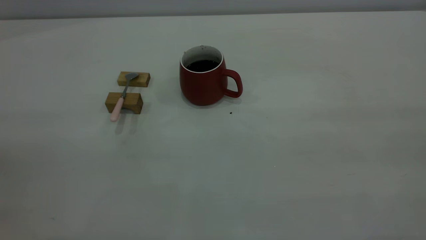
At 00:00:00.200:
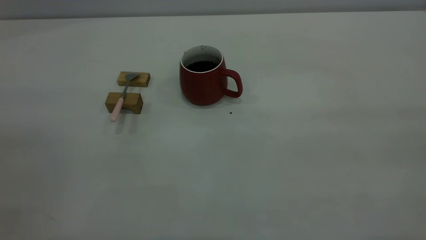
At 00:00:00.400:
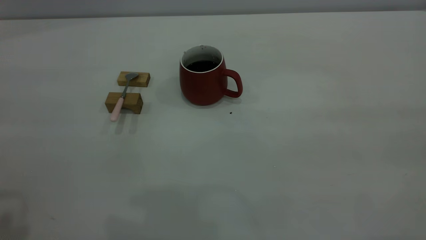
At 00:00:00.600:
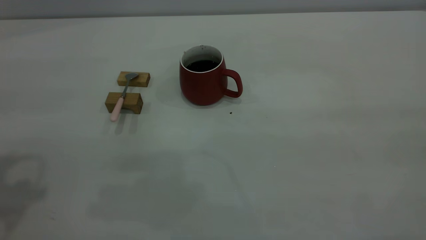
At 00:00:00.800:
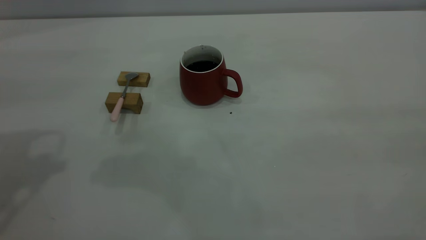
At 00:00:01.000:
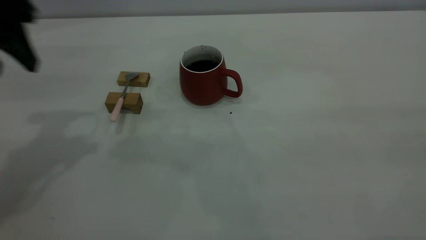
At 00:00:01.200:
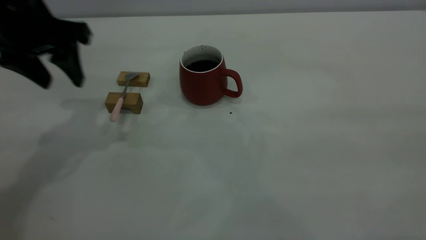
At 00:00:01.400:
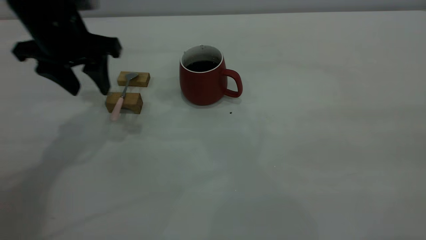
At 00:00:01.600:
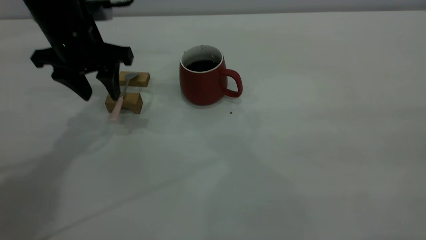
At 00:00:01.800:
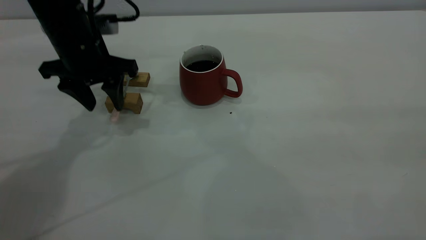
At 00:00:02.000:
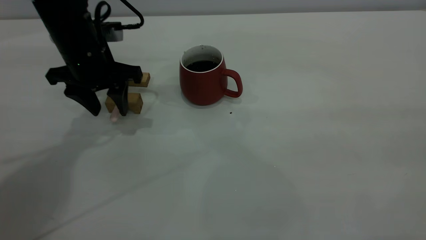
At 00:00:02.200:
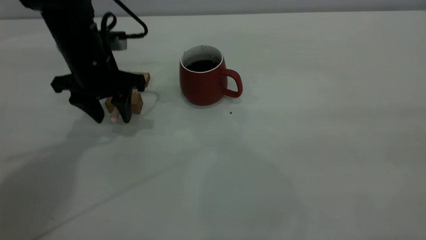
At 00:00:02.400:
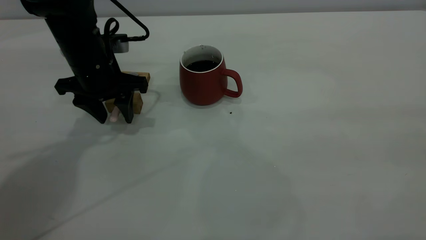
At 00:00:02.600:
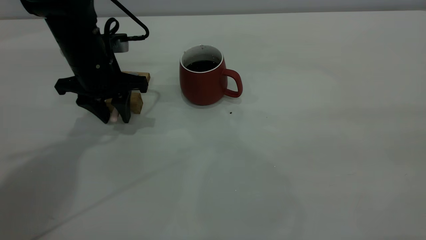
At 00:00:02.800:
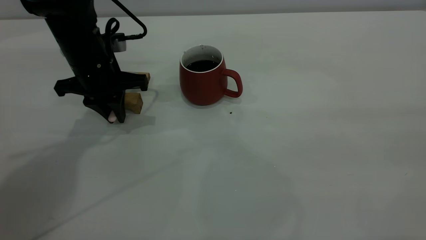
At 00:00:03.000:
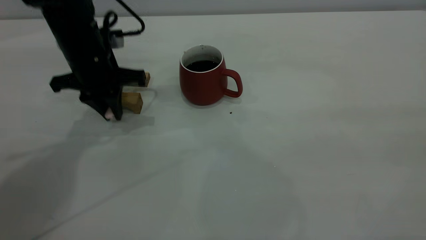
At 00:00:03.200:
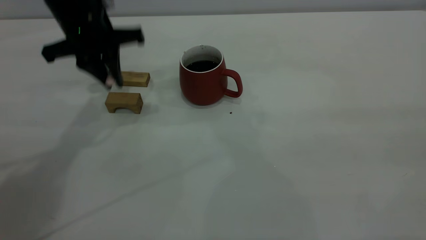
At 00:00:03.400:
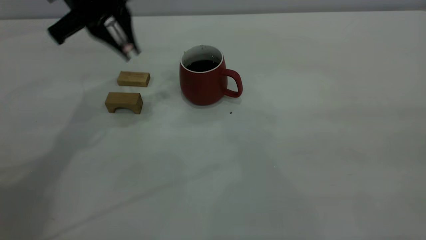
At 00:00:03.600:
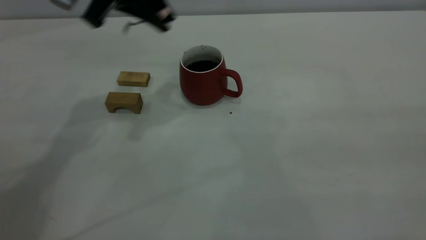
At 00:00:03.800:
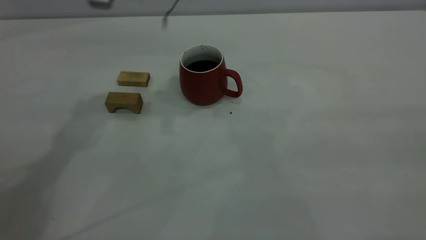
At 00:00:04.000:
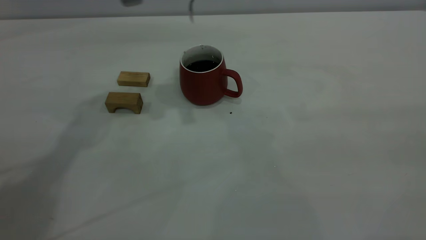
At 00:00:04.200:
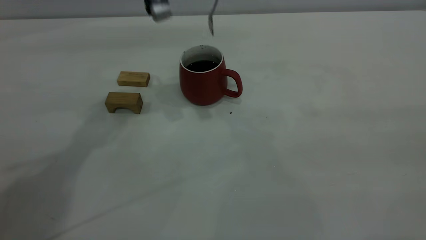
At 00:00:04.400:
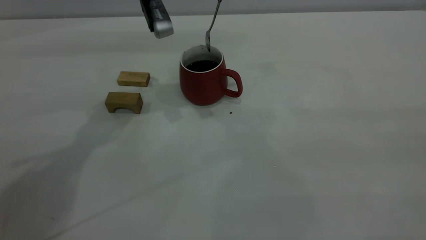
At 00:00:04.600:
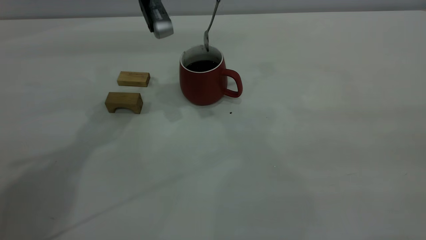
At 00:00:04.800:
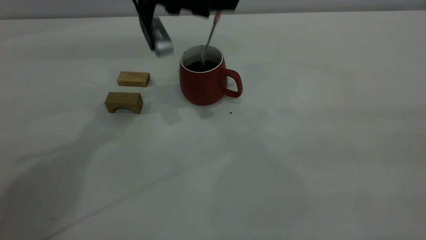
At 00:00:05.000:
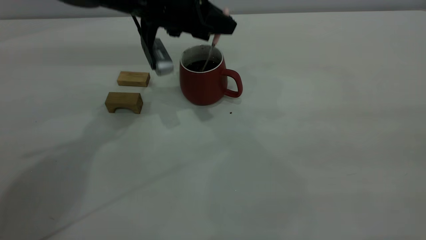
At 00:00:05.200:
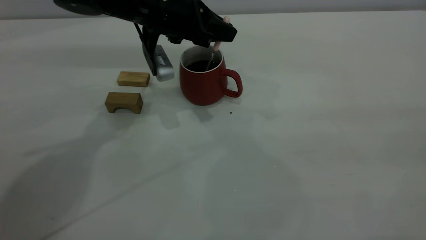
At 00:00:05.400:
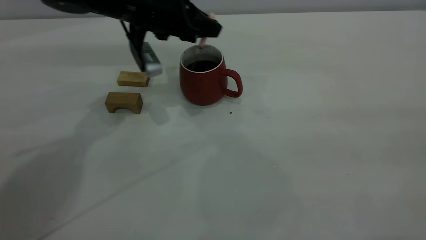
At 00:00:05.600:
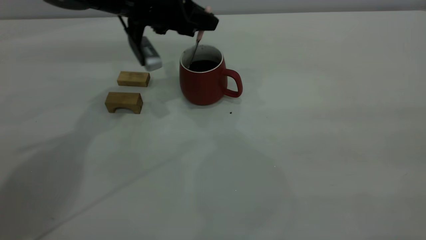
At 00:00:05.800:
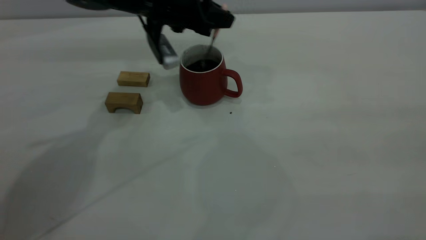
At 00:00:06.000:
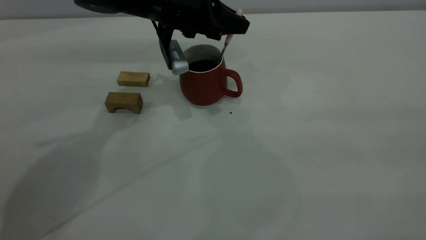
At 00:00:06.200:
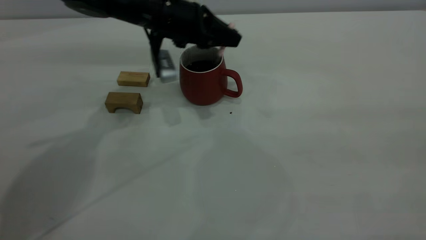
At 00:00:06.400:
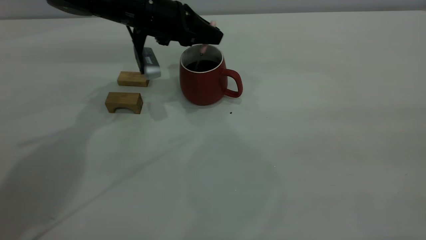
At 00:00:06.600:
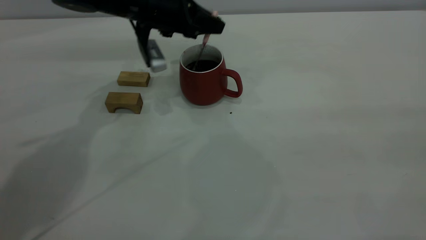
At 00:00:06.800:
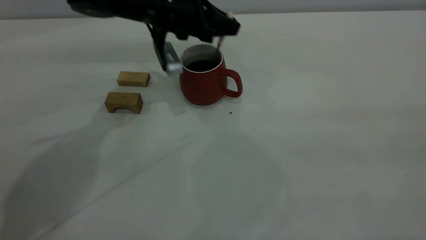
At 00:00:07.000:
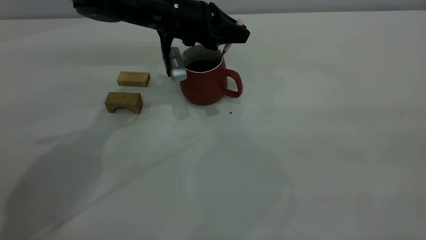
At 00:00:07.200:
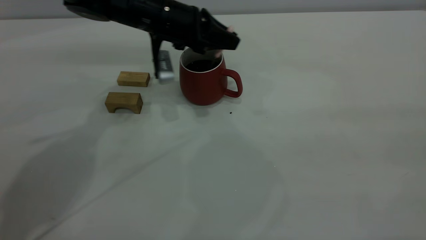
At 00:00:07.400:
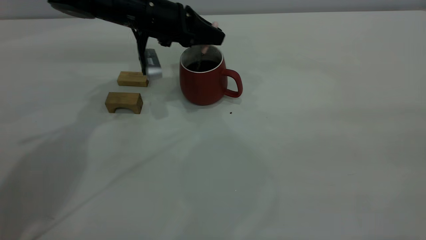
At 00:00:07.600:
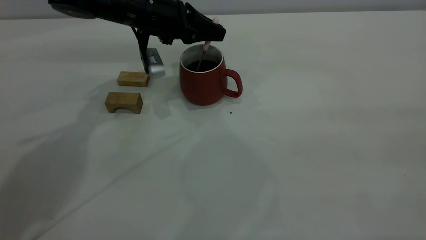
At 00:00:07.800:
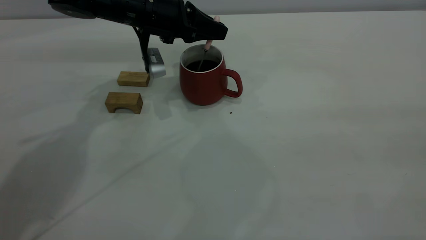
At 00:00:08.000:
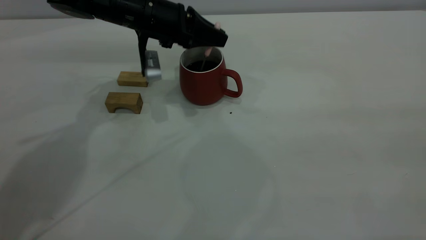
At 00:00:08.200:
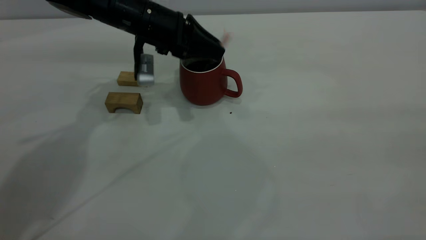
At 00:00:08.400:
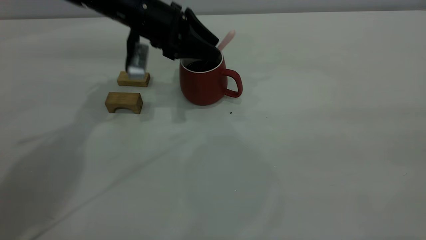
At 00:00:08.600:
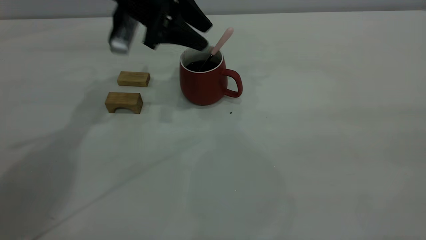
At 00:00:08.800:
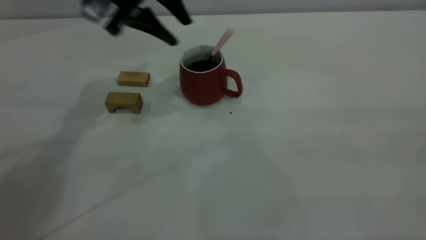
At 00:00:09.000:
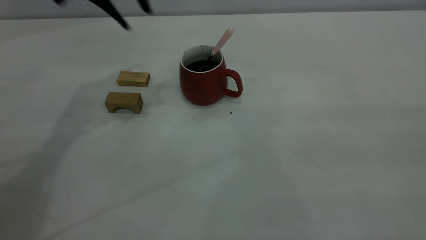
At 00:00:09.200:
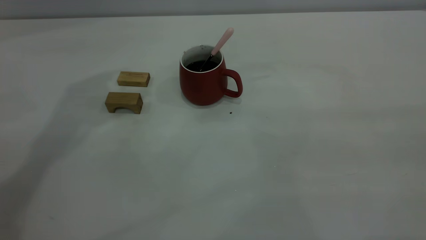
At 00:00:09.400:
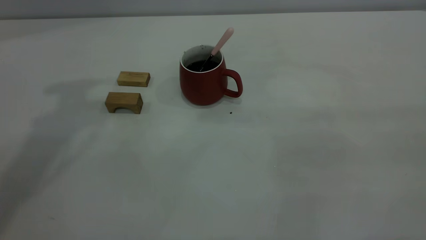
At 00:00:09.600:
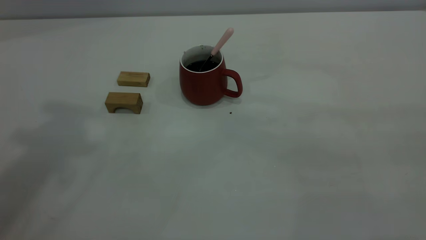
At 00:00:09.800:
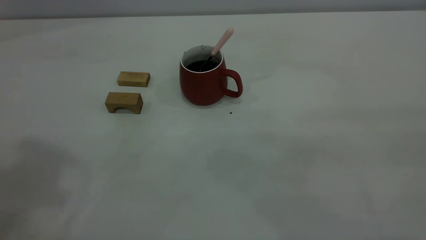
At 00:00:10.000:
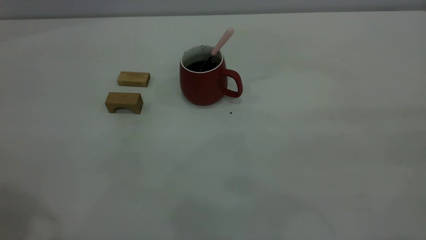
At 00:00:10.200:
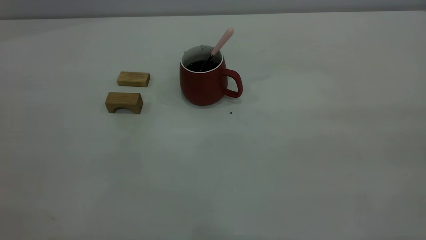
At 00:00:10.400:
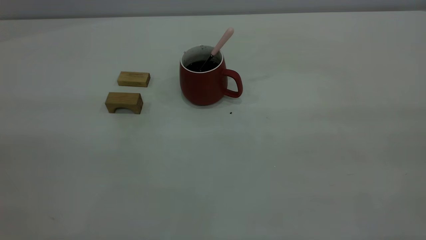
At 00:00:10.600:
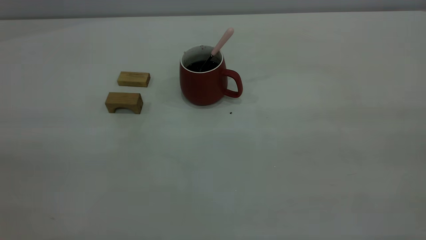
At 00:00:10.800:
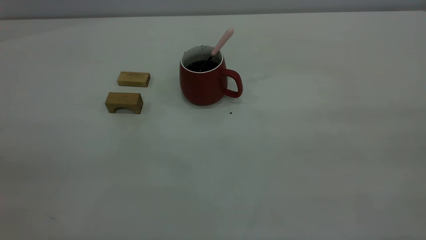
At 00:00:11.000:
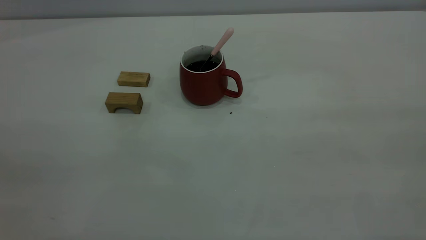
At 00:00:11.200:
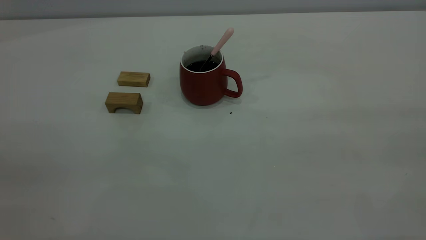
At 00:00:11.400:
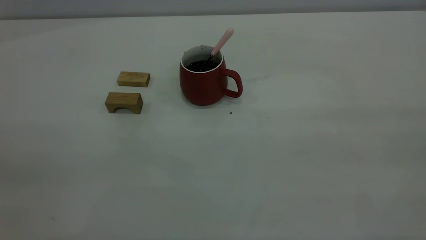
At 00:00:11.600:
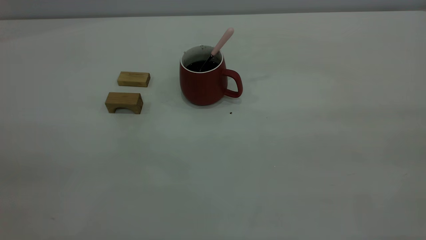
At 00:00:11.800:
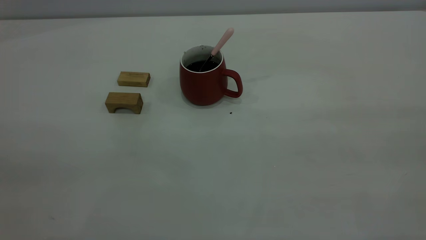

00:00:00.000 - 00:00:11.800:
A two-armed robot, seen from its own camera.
Step, 00:00:00.000 - 00:00:03.200: Pick up the spoon.
Step, 00:00:03.400 - 00:00:08.600: Stir the coffee in the cup.
00:00:00.000 - 00:00:01.400: The left gripper is displaced forward and downward by about 40 cm.
00:00:01.400 - 00:00:03.000: The left gripper travels downward by about 5 cm, and closes up.
00:00:03.000 - 00:00:04.400: The left gripper is displaced to the right and upward by some 15 cm.
00:00:04.400 - 00:00:06.000: The left gripper moves downward, approximately 10 cm.
00:00:06.000 - 00:00:07.400: The left gripper moves left and right over about 5 cm, changing direction 2 times.
00:00:07.400 - 00:00:08.800: The left gripper travels upward by about 10 cm, and opens its fingers.
00:00:08.800 - 00:00:10.400: The left gripper moves backward, approximately 40 cm.
